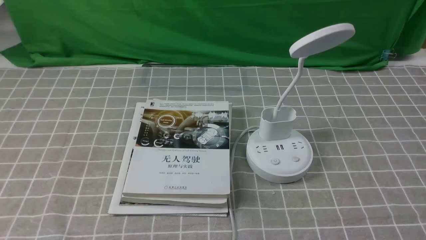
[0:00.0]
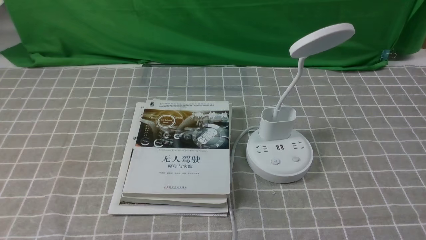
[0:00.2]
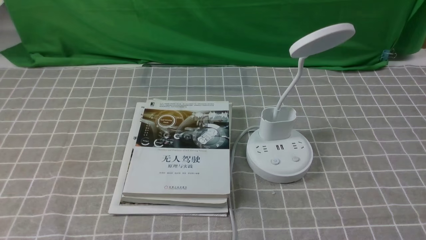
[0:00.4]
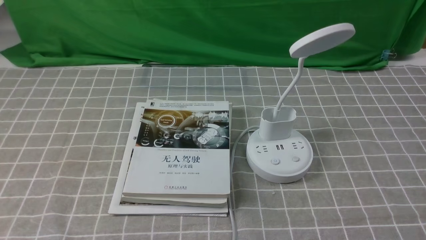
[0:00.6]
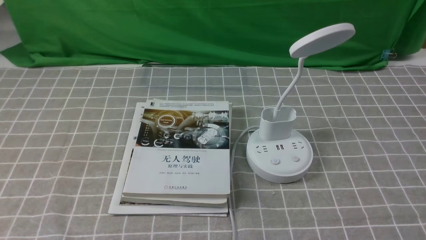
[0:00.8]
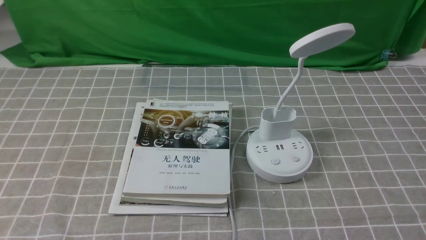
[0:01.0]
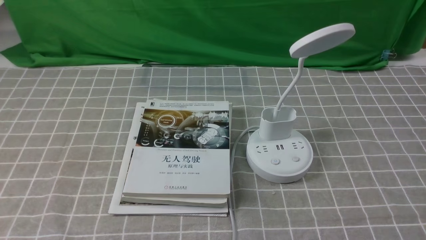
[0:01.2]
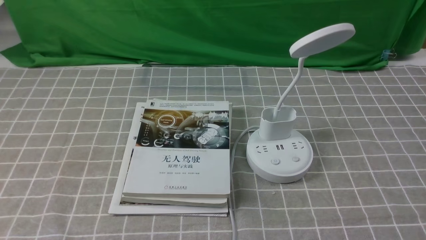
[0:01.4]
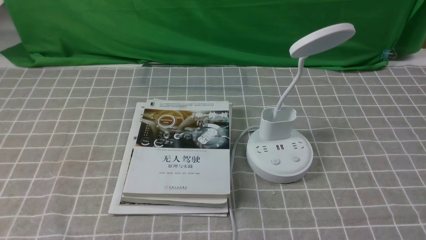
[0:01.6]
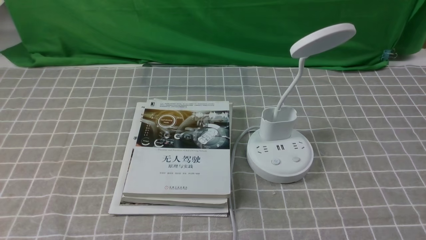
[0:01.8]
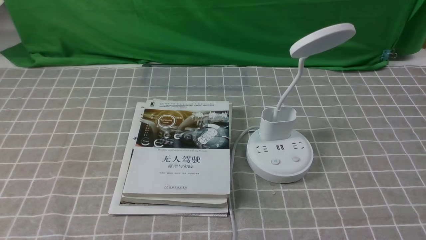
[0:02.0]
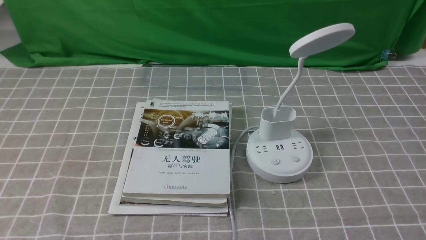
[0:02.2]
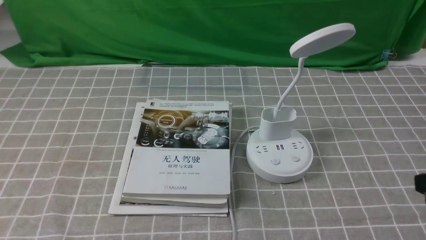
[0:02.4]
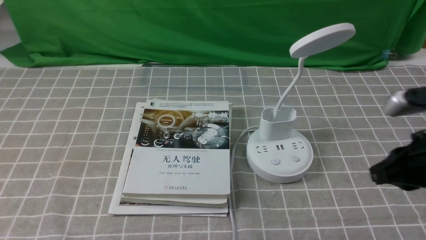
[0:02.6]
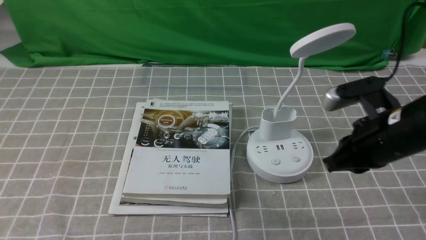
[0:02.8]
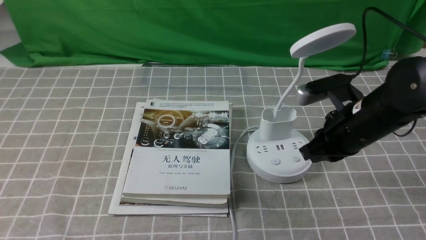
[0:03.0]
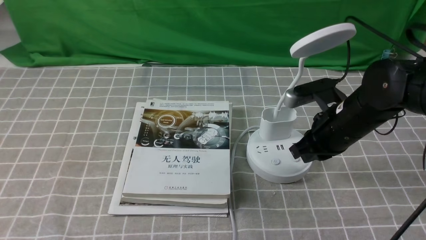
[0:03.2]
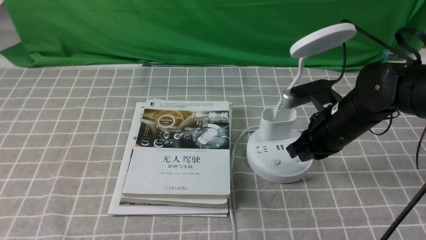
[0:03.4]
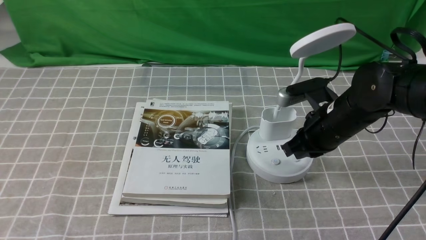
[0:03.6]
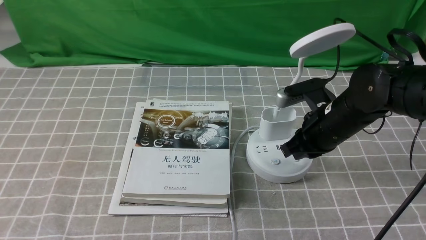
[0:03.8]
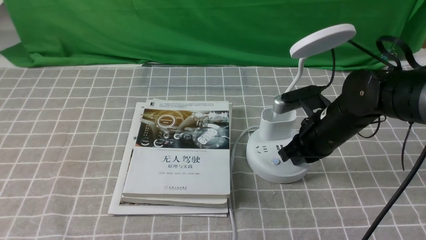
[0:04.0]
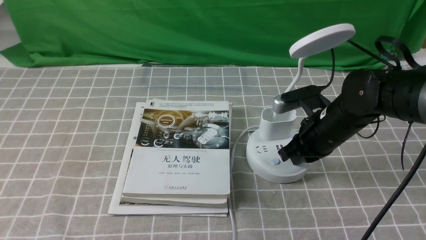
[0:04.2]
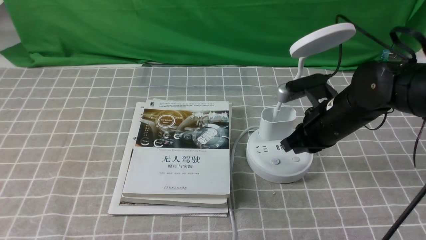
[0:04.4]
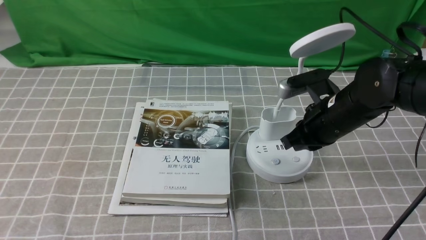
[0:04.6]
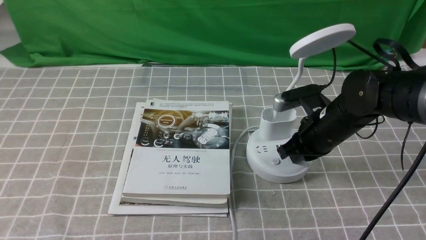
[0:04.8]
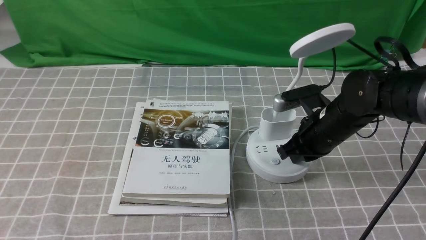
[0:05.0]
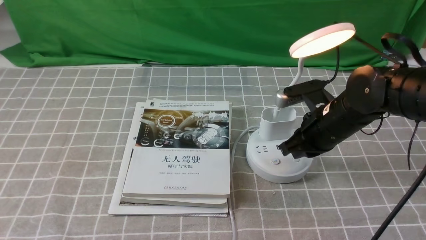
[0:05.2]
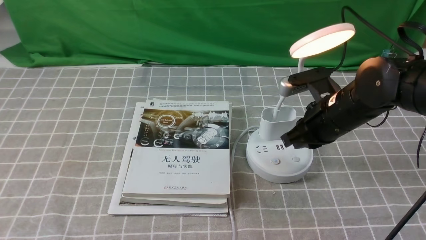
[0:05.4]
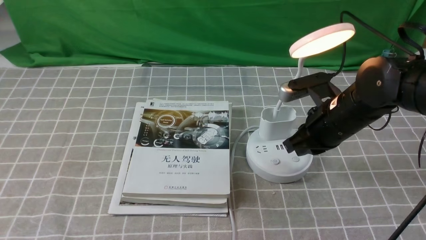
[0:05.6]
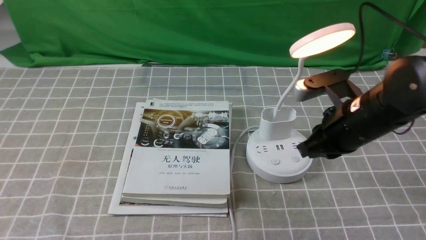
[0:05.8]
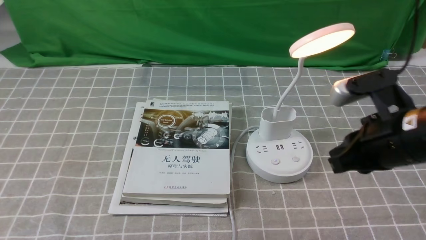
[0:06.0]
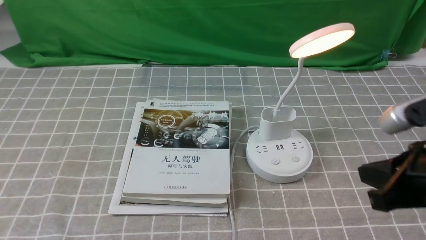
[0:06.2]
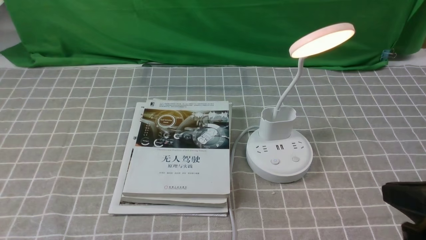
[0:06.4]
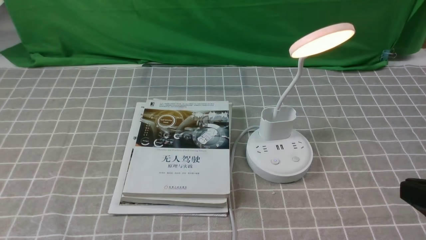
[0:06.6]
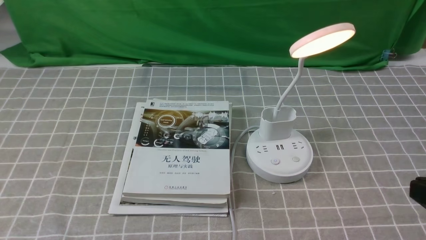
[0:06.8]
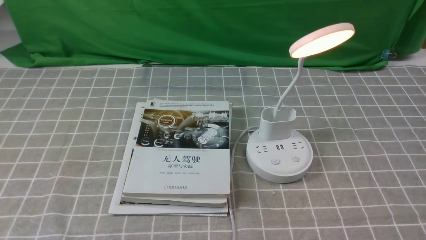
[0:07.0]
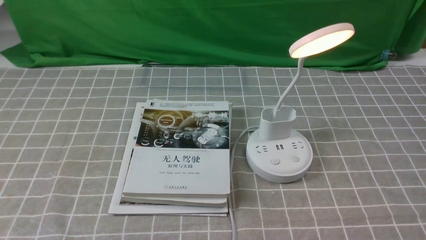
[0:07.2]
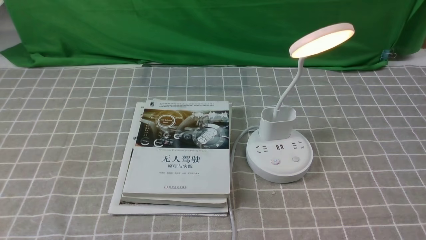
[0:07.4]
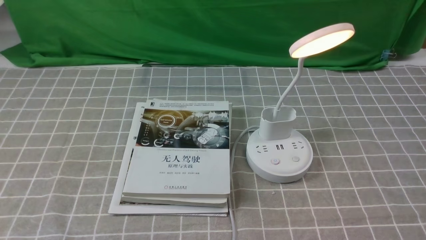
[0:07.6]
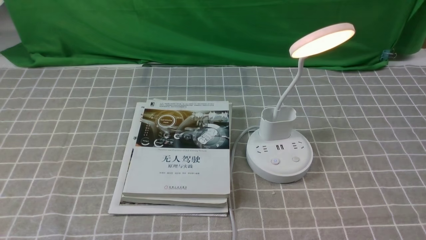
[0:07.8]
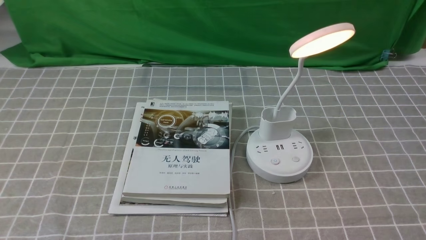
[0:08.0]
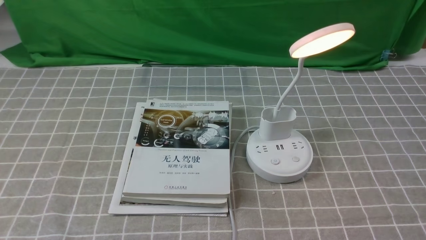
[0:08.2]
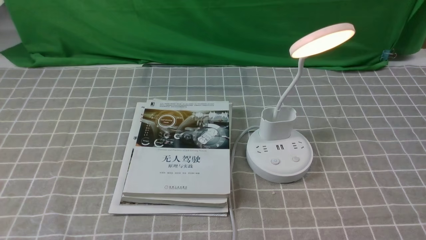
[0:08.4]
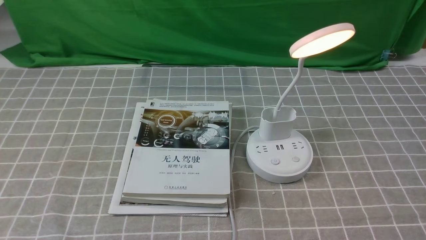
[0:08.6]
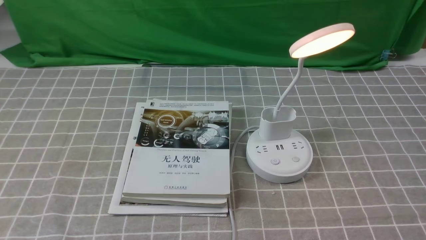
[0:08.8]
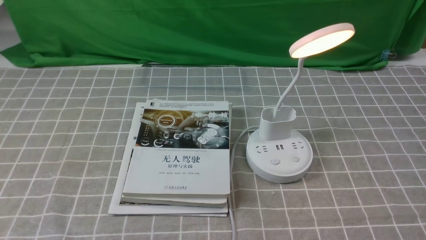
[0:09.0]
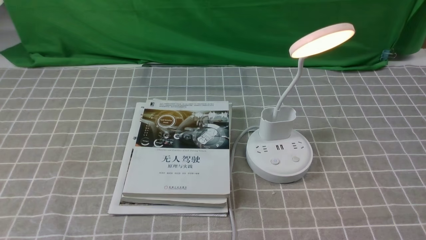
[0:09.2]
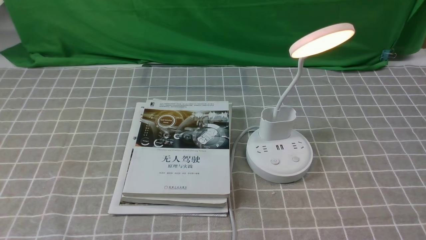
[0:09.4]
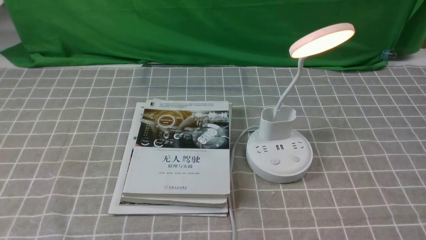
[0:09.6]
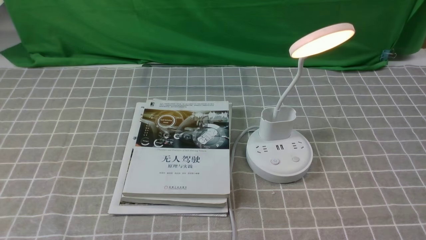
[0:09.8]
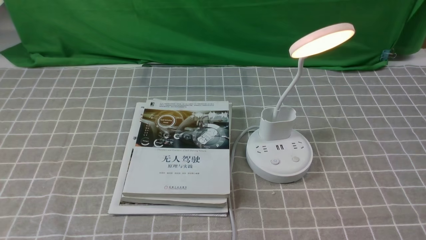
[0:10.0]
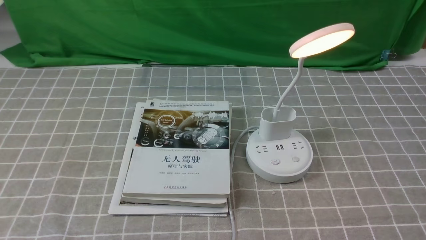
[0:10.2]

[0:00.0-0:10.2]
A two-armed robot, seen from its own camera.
Step, 0:00.0 to 0:05.4: use the right arm to press the button switch on the lamp holder.
0:01.4 to 0:03.0: The right gripper goes approximately 25 cm forward and to the left, and closes.
0:03.0 to 0:04.4: The right gripper travels forward by roughly 5 cm.
0:04.4 to 0:05.8: The right gripper shifts by about 5 cm.
0:05.8 to 0:07.2: The right gripper moves backward and to the right, some 25 cm.

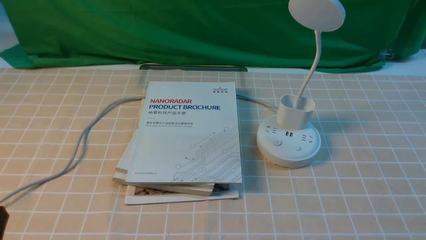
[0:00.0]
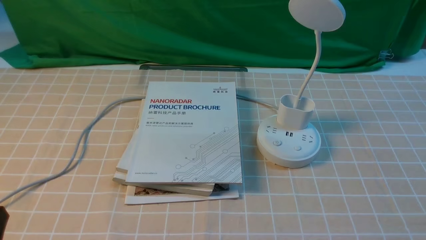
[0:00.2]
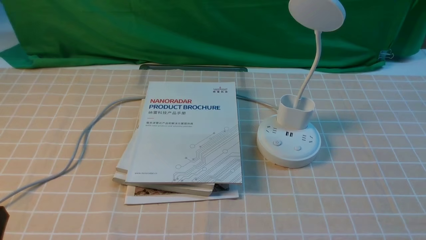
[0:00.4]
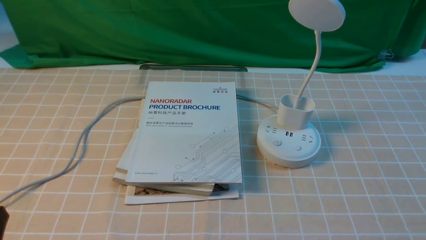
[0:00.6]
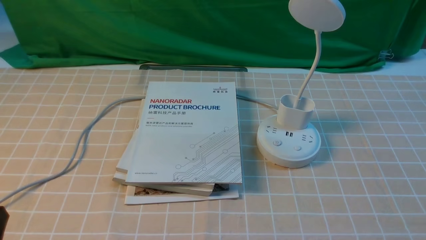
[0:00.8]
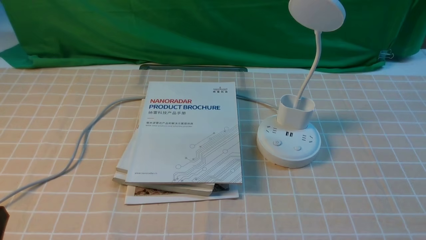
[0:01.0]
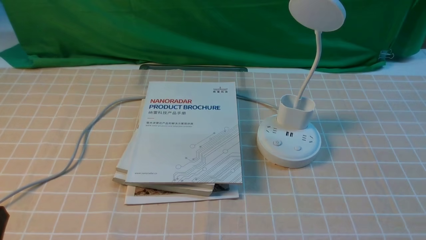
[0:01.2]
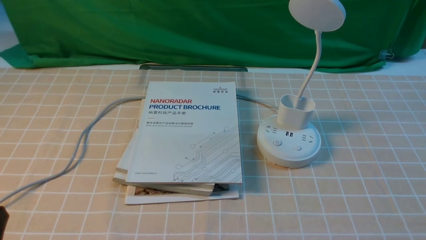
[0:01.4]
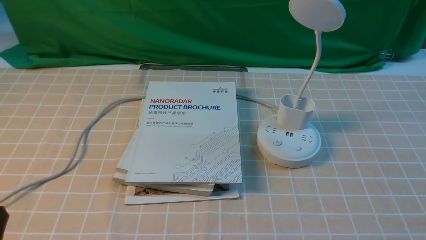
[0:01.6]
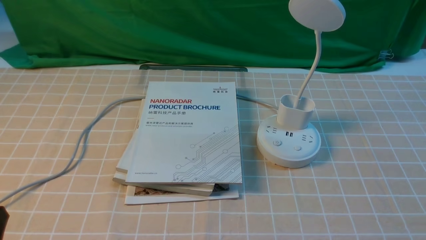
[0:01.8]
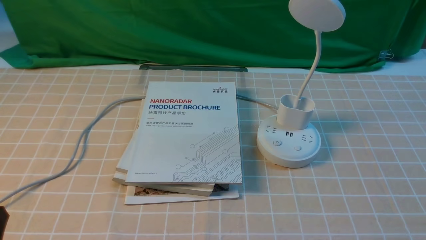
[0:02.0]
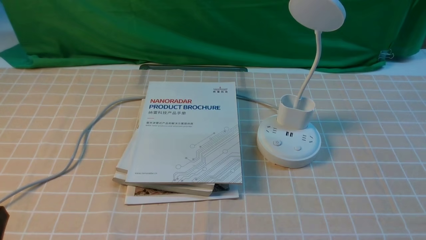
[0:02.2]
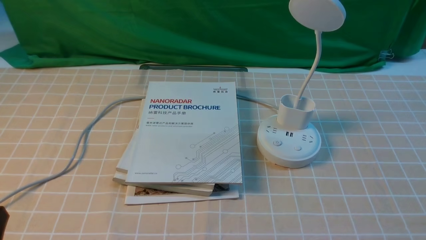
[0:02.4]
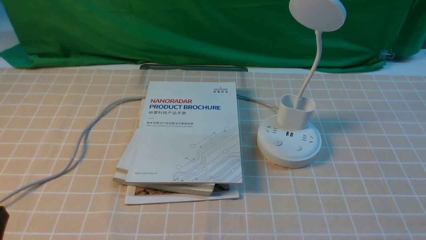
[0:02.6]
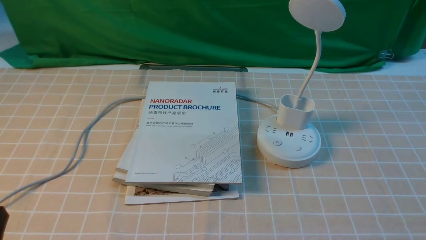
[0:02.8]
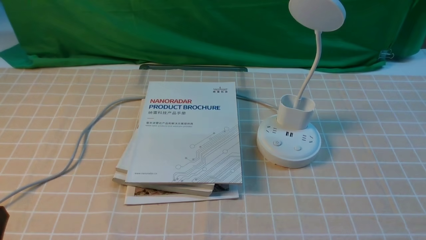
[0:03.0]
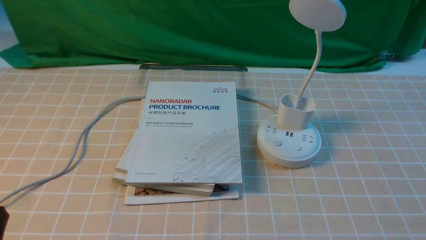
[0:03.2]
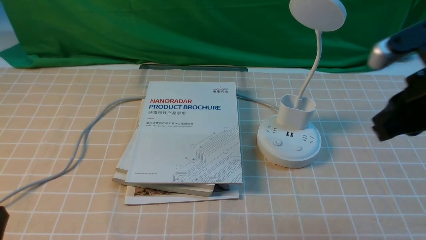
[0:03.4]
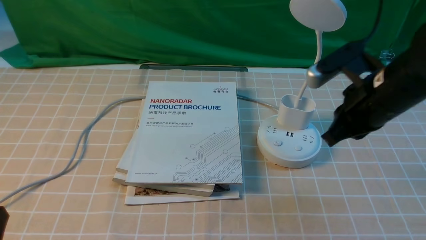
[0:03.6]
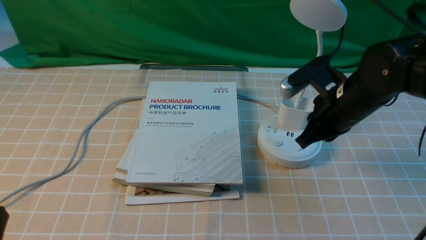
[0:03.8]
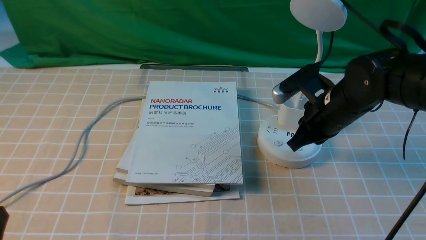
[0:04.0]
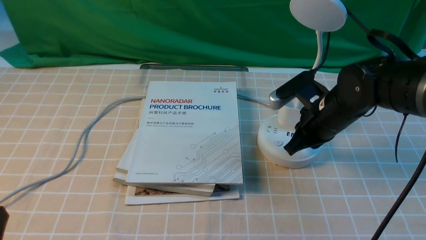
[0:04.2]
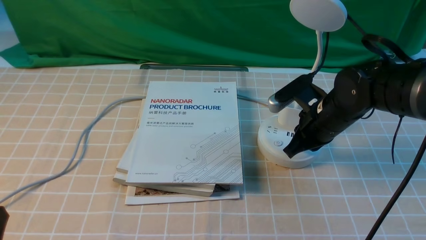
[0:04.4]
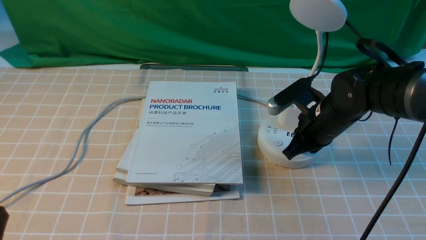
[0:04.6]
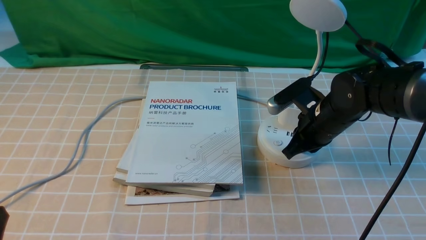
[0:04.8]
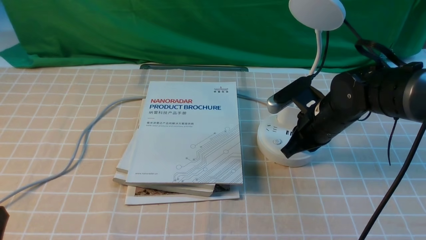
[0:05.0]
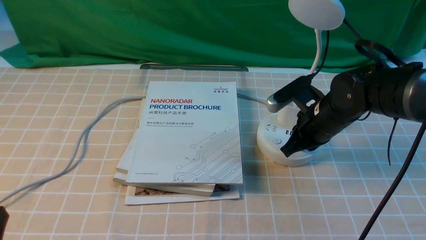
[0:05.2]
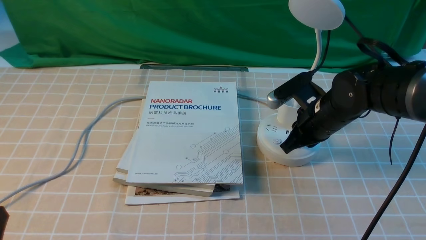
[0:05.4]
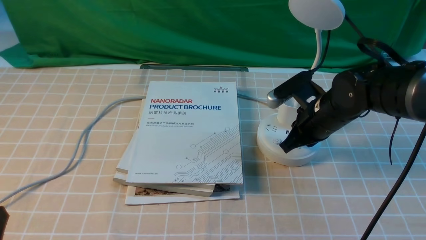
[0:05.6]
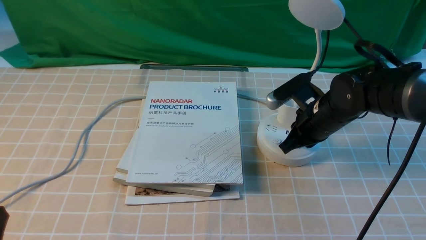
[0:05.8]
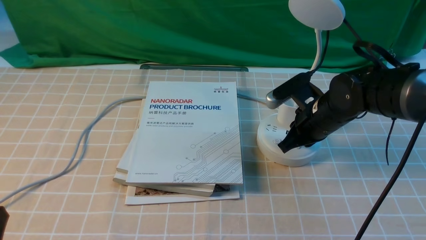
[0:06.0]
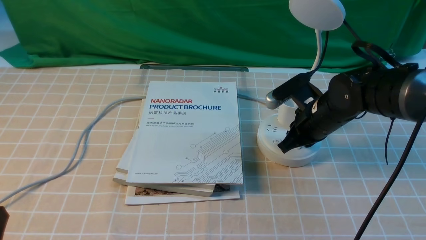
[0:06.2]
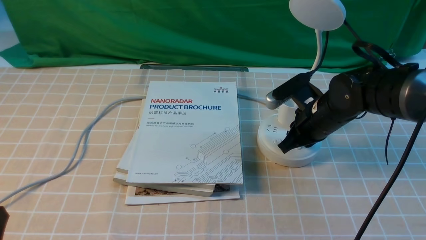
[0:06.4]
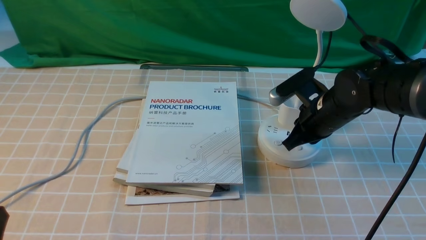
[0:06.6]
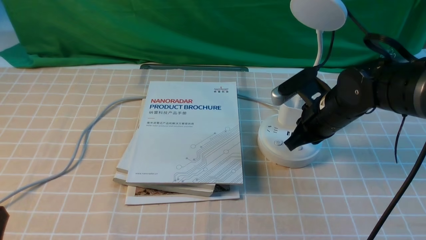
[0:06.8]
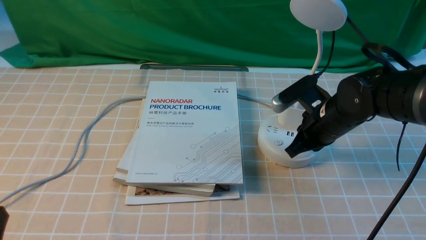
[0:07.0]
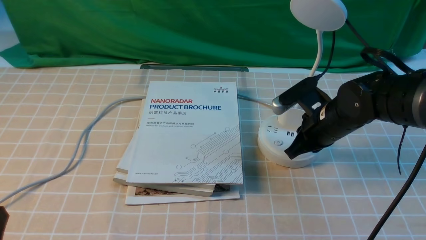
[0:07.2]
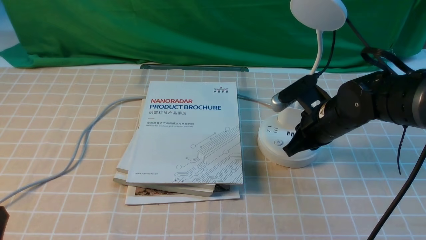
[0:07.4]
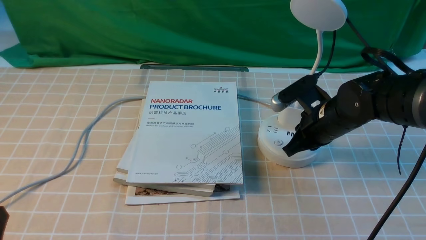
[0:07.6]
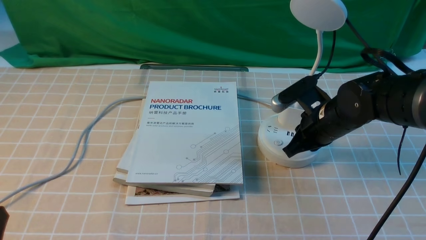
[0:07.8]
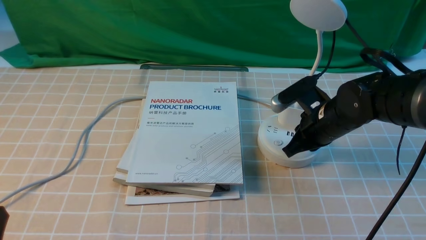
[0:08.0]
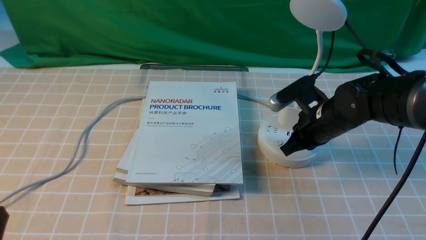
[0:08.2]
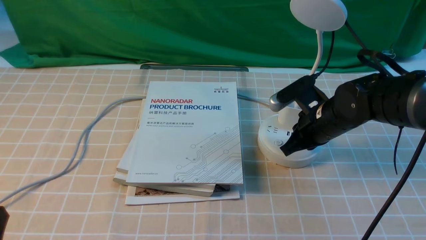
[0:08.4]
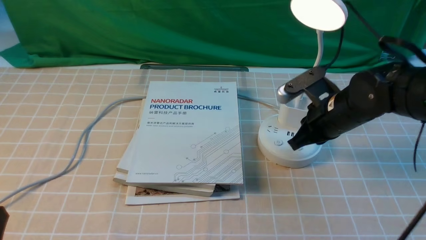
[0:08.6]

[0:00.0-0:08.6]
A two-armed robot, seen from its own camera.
0:02.8 to 0:04.4: The right gripper travels forward and to the left by some 30 cm, and closes.
0:04.4 to 0:05.8: Neither gripper changes place.
0:05.8 to 0:07.2: Both grippers stay about where they are.
0:07.2 to 0:08.6: The grippers make only small movements.
